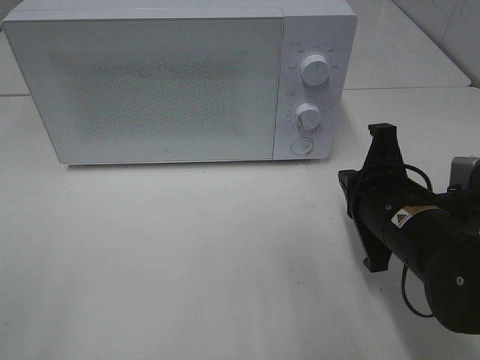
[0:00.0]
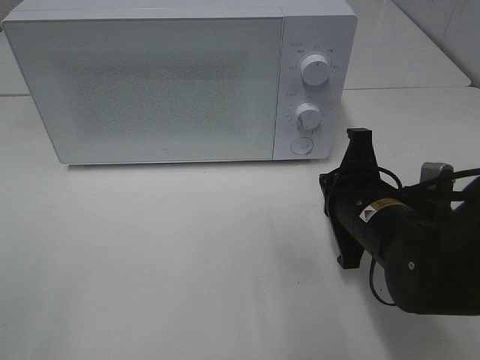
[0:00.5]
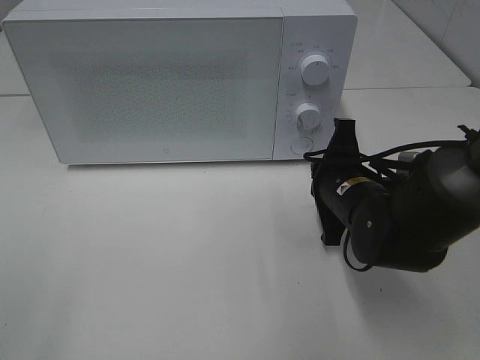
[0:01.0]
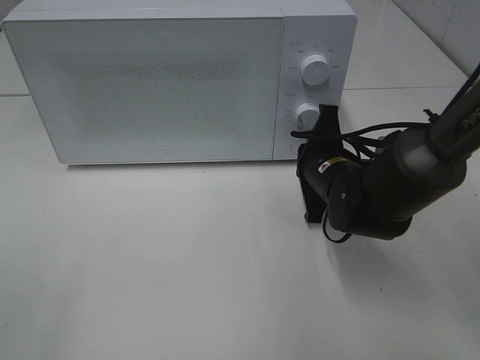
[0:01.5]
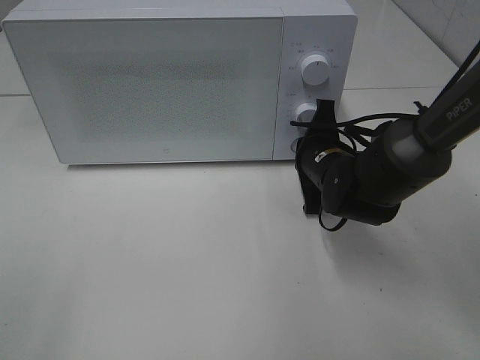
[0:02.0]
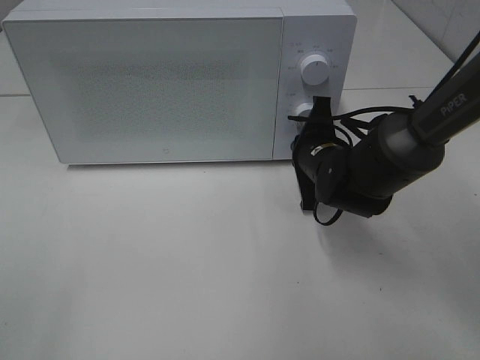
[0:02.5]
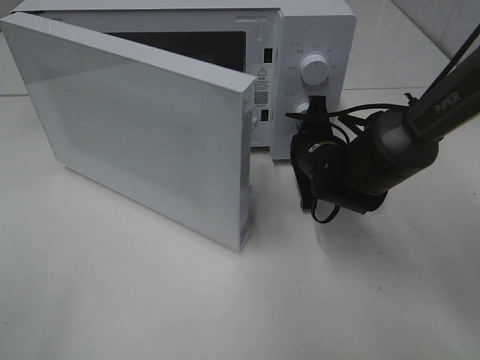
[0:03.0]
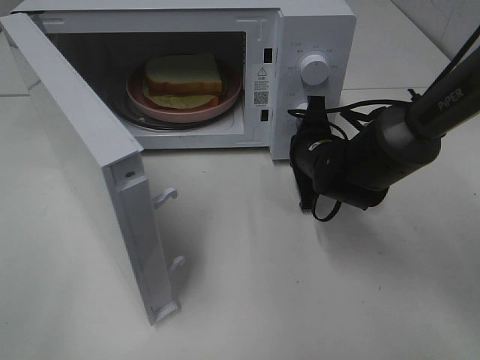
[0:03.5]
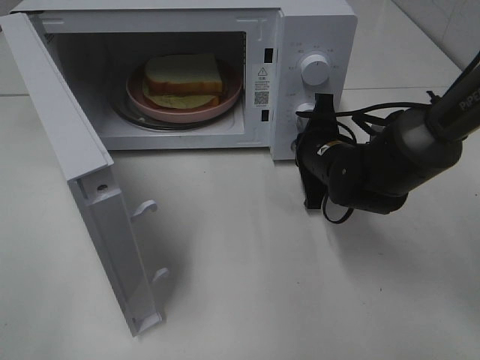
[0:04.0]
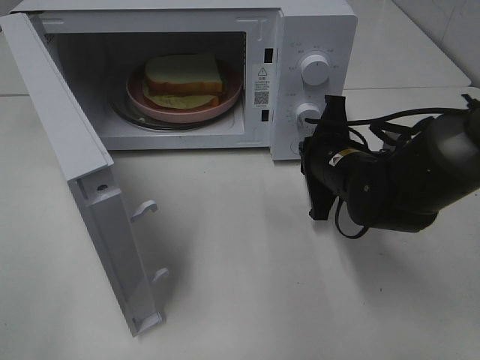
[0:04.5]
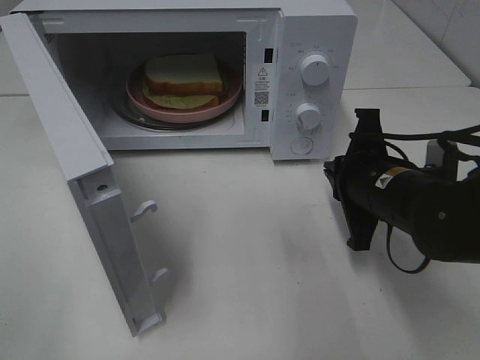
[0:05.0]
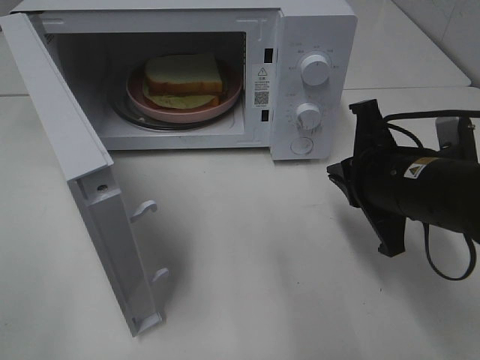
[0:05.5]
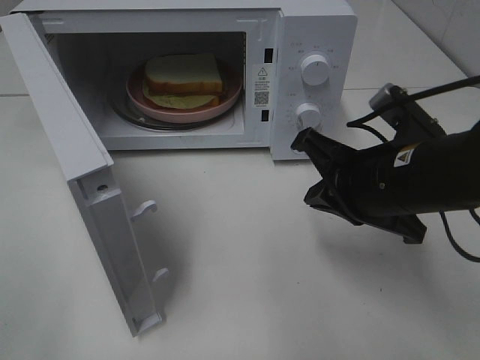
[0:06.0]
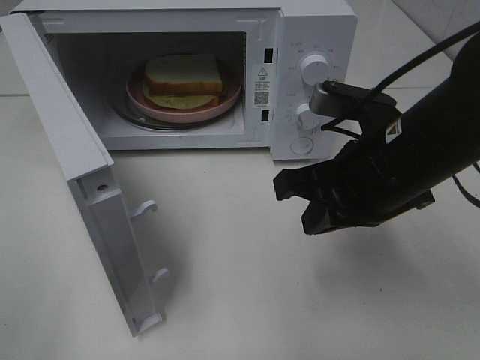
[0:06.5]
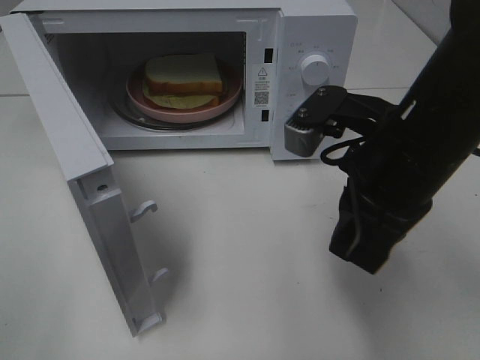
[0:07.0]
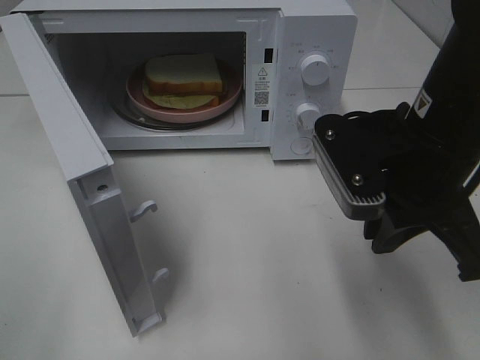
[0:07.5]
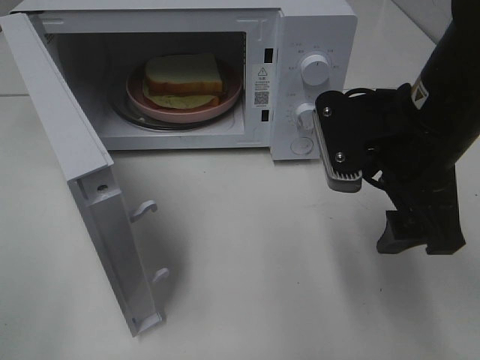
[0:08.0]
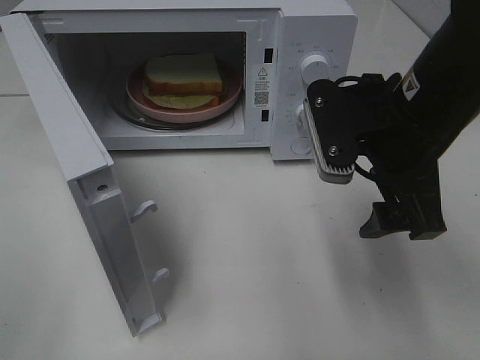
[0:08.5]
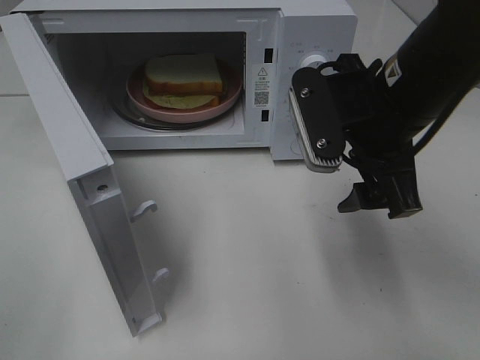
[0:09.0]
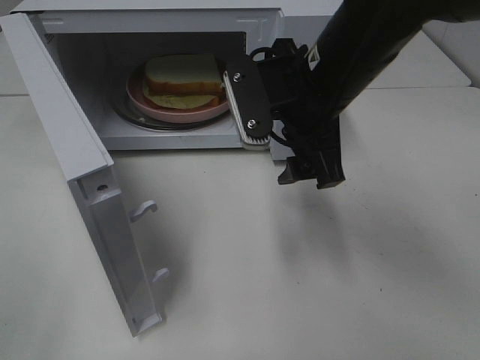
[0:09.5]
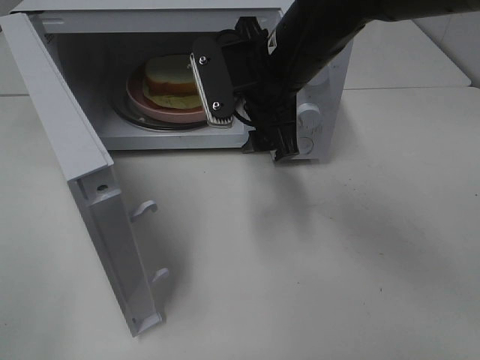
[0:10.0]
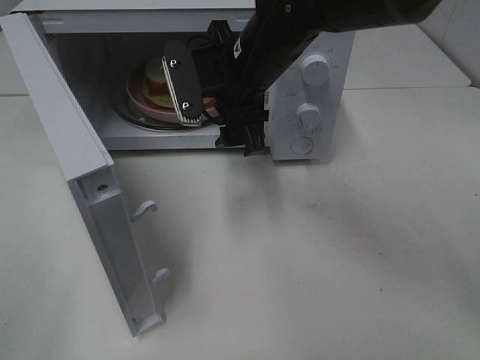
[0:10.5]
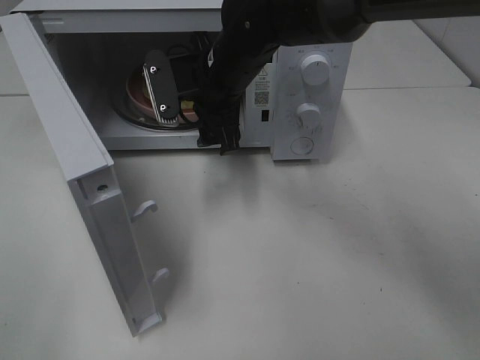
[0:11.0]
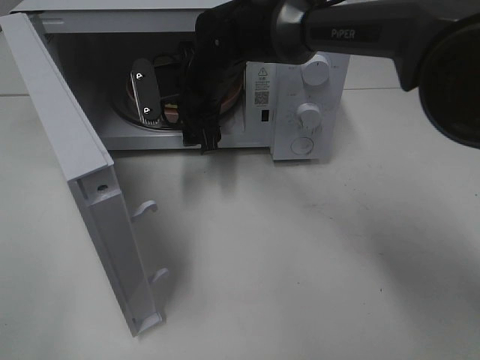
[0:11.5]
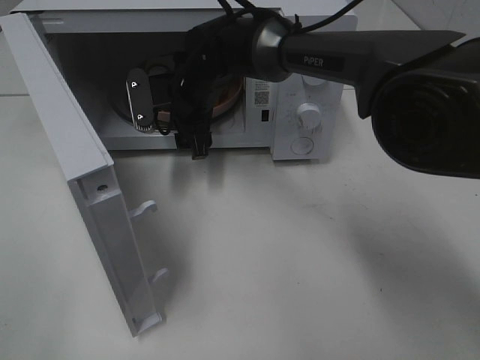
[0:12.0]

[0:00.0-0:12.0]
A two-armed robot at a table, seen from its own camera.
Task of the whole recording: Heat Sandwich.
Step, 0.0 to 4.5 s: Right hand: press the switch.
0.0 to 2.0 s: The right gripper goes roughly 15 cm forward.
4.0 to 6.0 s: The right gripper shifts roughly 15 cm backward and upward.
6.0 to 8.0 s: The right gripper moves upward, about 5 cm, and opens its fingers.
8.0 to 10.0 s: The right gripper heads forward and to the left, covering roughly 15 cm.
10.0 to 12.0 s: The right gripper moves forward, to the left and downward, approximately 15 cm.

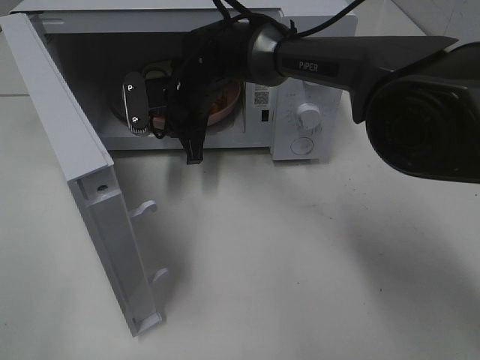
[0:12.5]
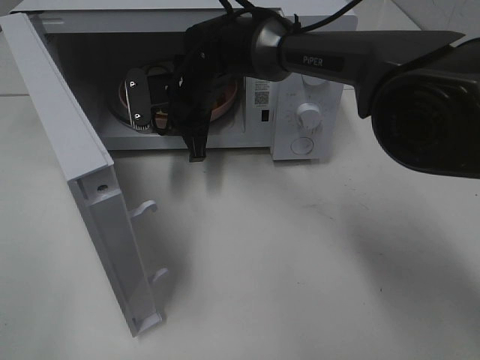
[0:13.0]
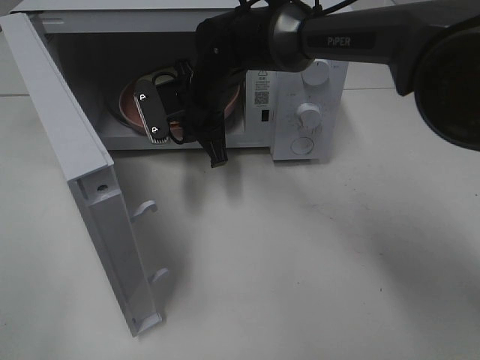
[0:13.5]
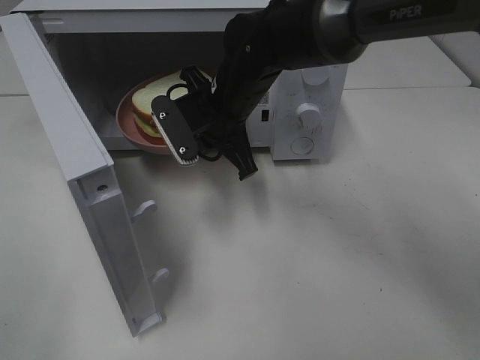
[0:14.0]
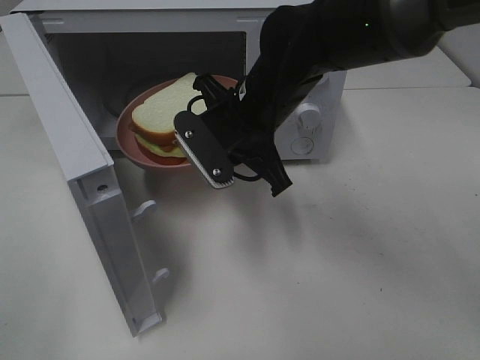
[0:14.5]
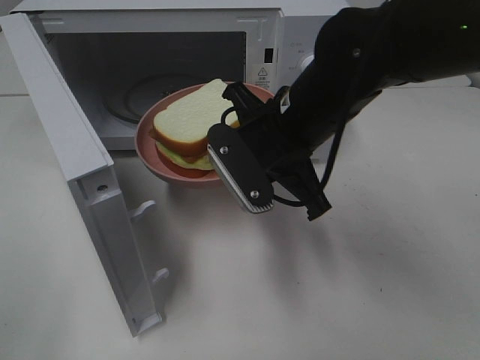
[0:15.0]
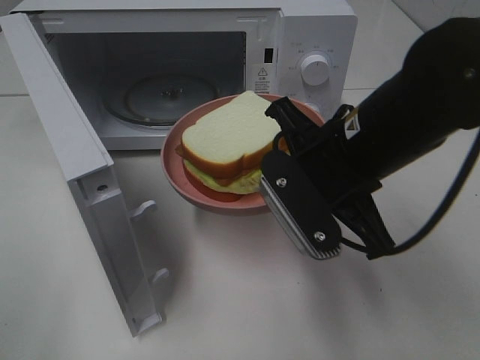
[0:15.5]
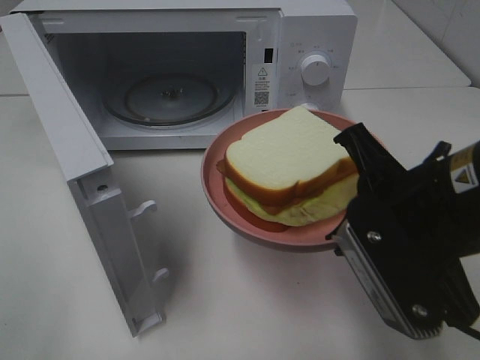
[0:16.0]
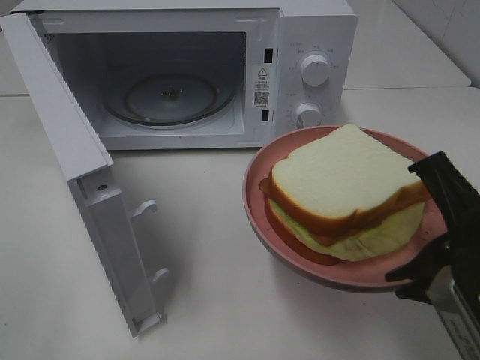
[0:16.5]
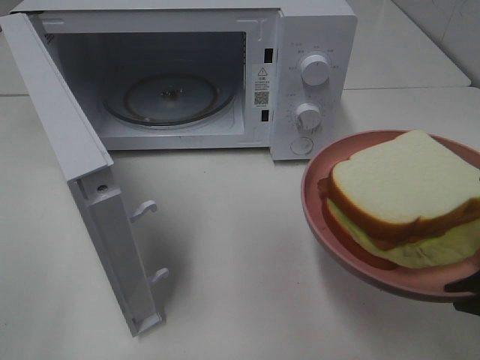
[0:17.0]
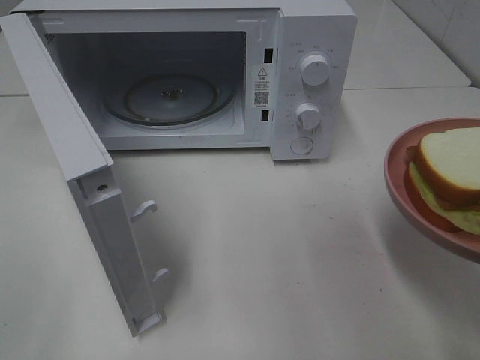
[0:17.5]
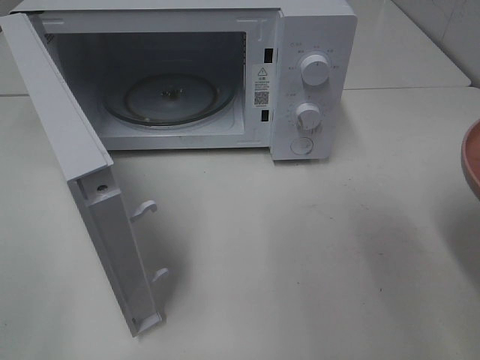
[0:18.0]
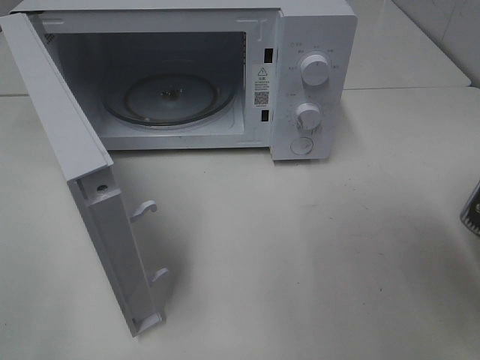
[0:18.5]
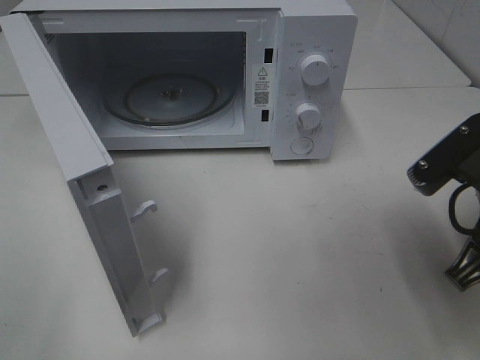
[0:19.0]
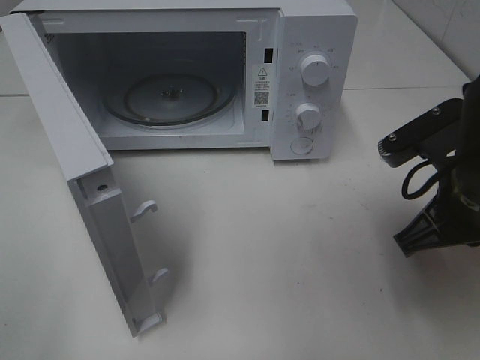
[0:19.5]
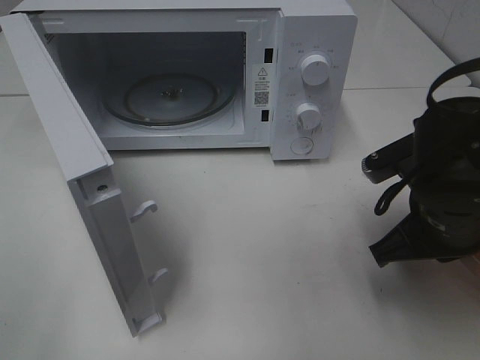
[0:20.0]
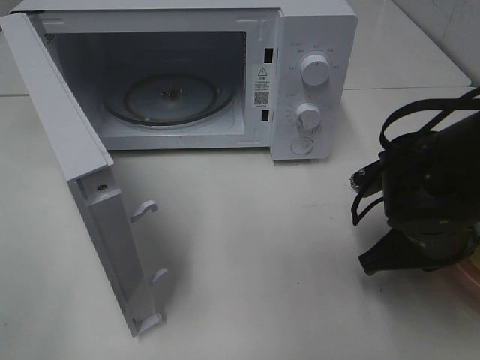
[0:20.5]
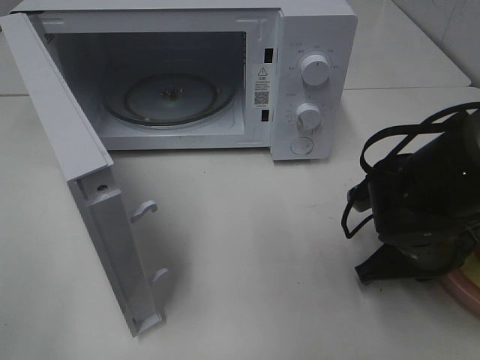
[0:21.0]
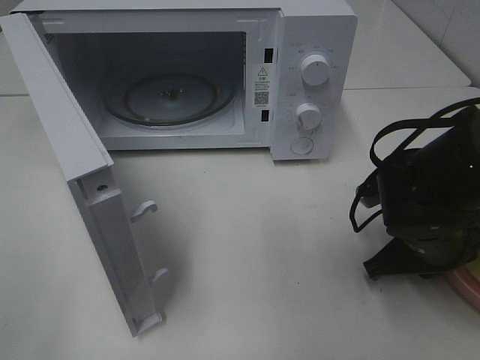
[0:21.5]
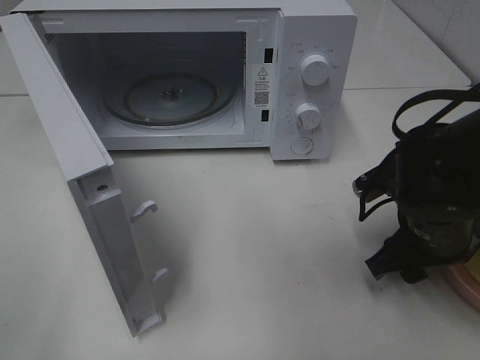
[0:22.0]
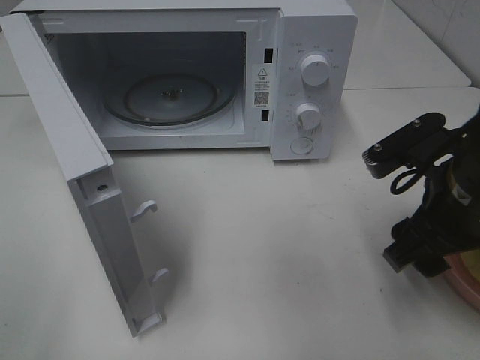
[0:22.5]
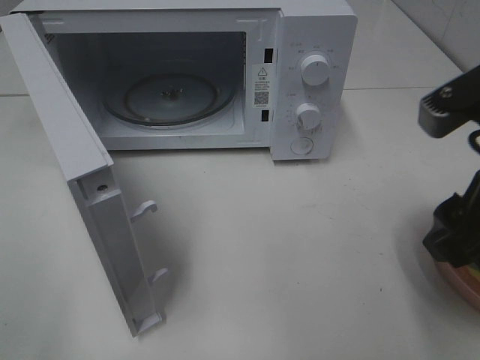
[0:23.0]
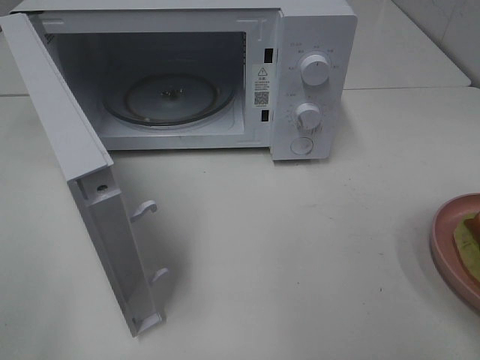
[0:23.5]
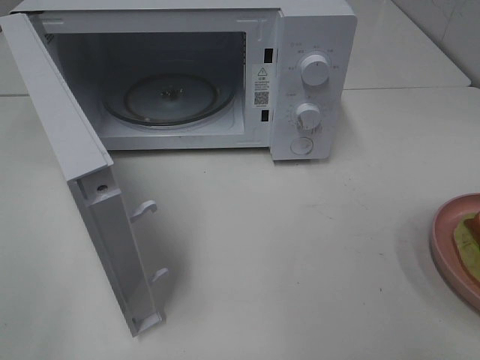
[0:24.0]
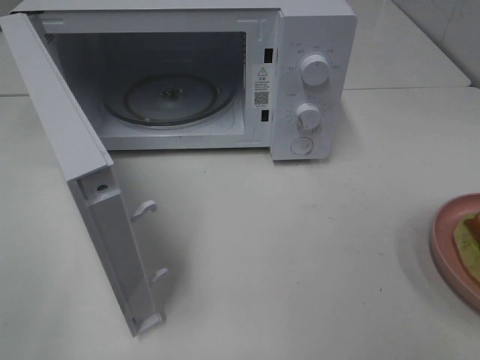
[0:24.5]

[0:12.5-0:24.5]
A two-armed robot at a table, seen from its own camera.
Task of the whole recording: Heat Sandwich.
Step, 13.0 to 23.0 s: Right hand: place the plate on the table.
12.5 to 14.5 s: The right gripper moves backward, to the right and upward, approximately 15 cm.
14.5 to 16.5 s: The right gripper heads backward and to the right, covering about 25 cm.
16.5 to 18.5 s: The right gripper goes some 5 cm to the right.
18.5 to 20.5 s: The right gripper moves downward, forward and to the left, about 15 cm.
20.5 to 22.5 s: The right gripper goes some 5 cm upward, and opens its fingers.
22.5 to 24.5 s: The right gripper goes roughly 25 cm backward, upward and to the right.

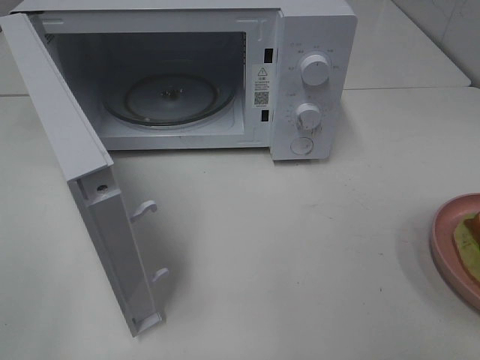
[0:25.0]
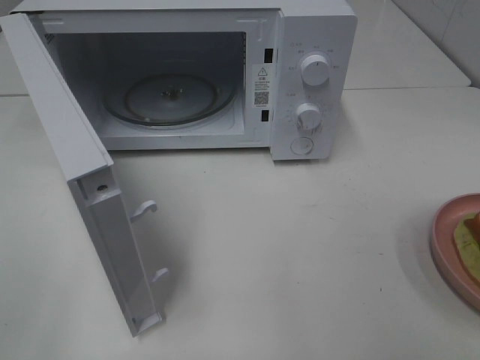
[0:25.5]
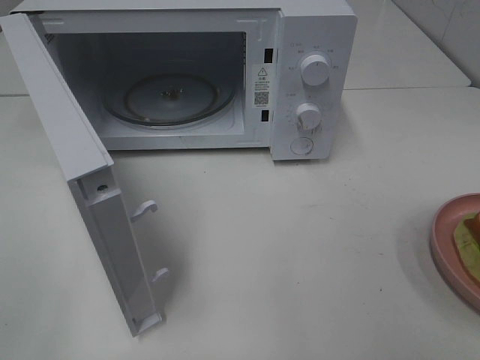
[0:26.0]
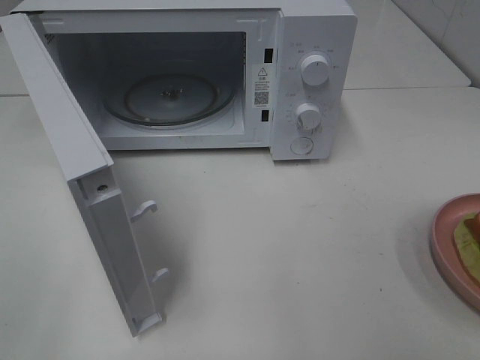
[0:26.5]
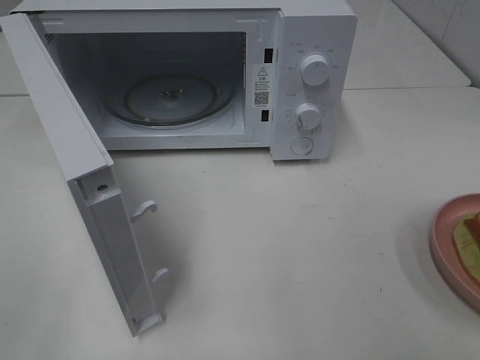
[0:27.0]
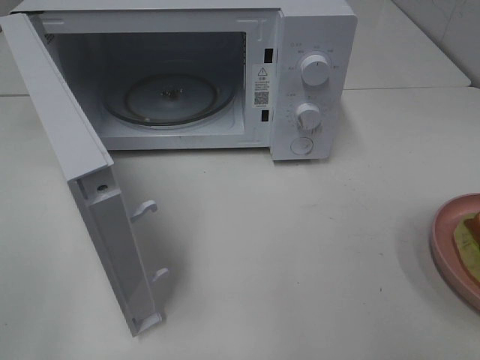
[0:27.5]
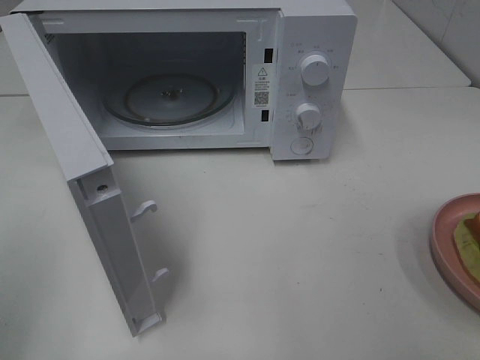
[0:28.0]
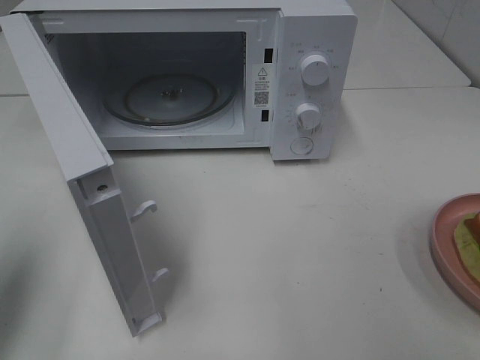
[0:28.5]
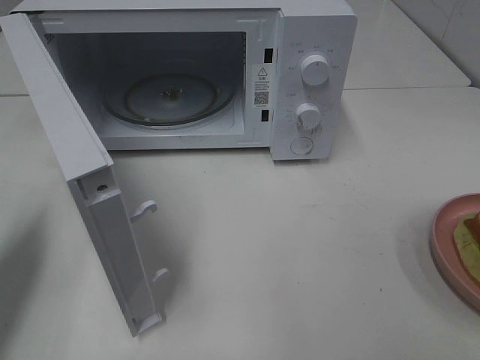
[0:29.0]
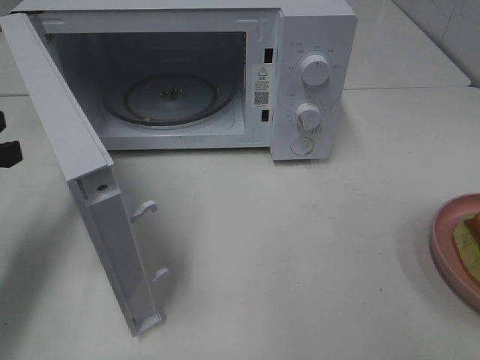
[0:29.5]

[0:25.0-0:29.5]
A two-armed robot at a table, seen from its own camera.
Task of the whole recording: Heat Sandwich.
27.0 to 29.5 s: The left gripper goes roughly 25 cm forward, and closes.
